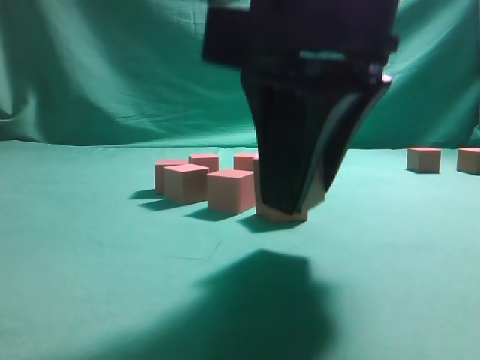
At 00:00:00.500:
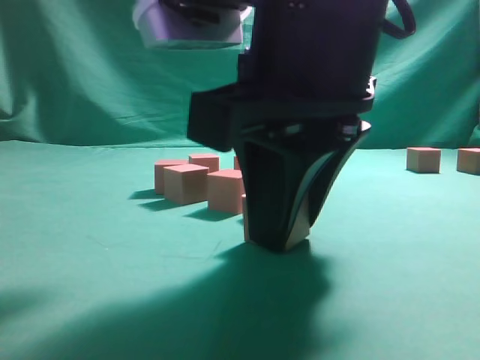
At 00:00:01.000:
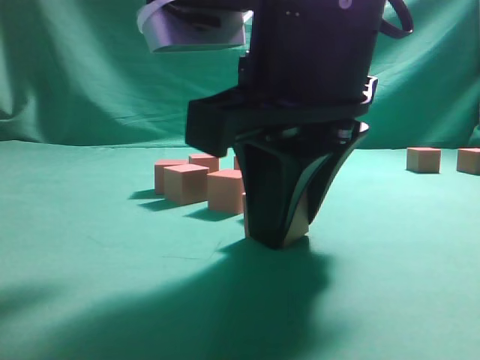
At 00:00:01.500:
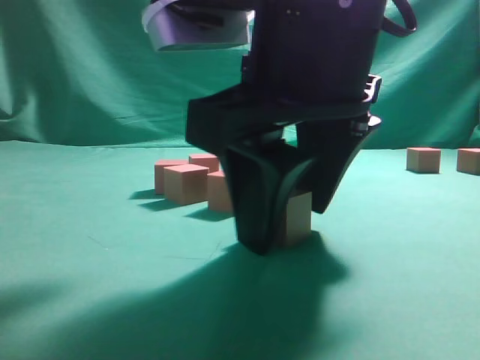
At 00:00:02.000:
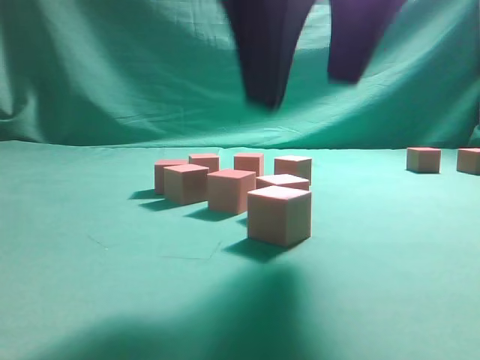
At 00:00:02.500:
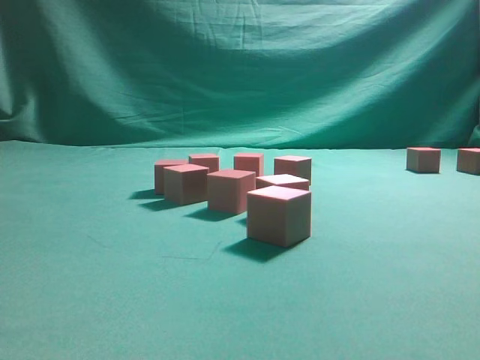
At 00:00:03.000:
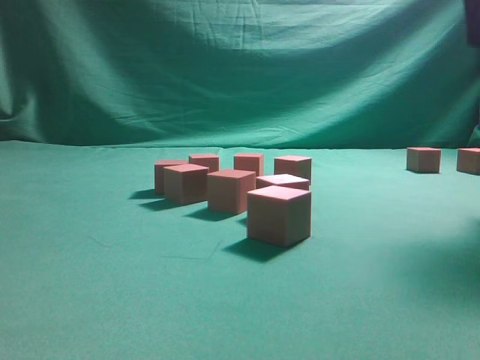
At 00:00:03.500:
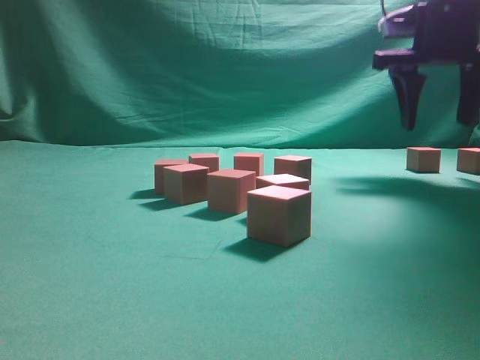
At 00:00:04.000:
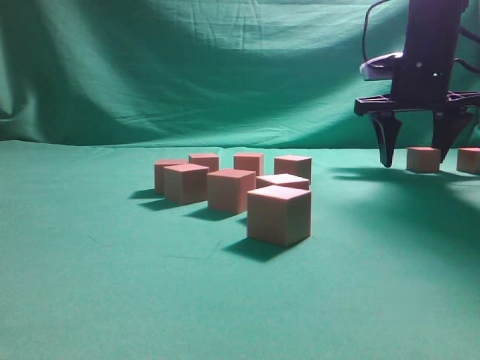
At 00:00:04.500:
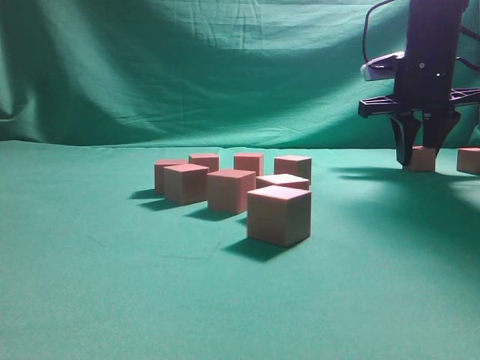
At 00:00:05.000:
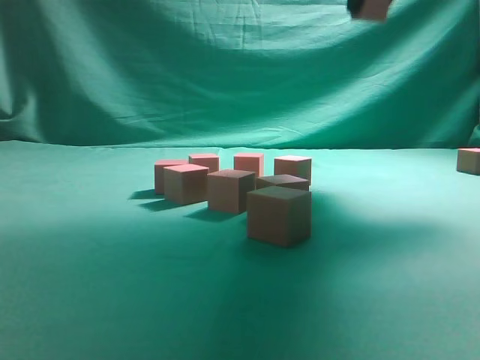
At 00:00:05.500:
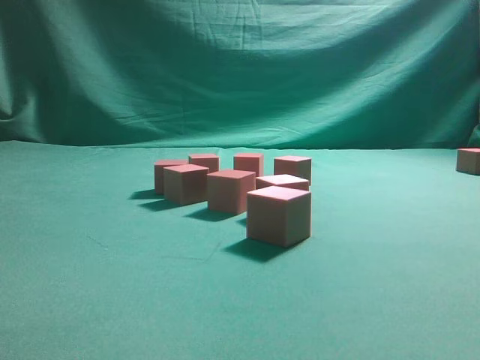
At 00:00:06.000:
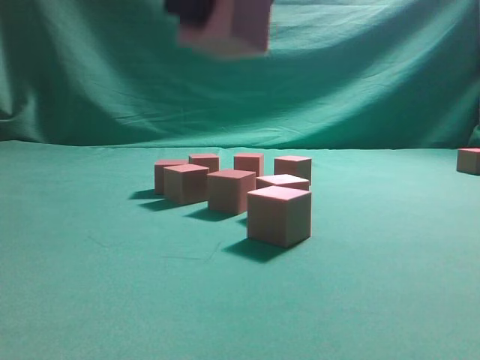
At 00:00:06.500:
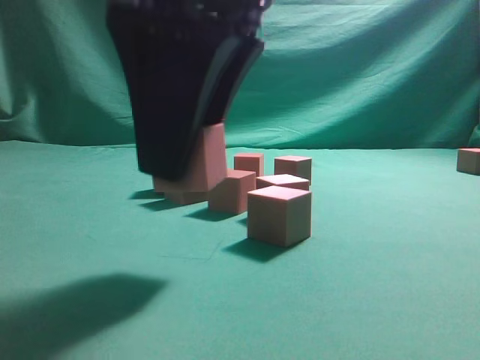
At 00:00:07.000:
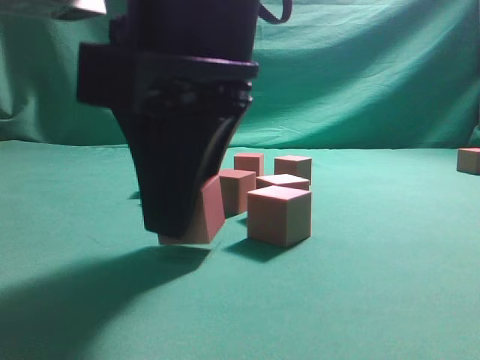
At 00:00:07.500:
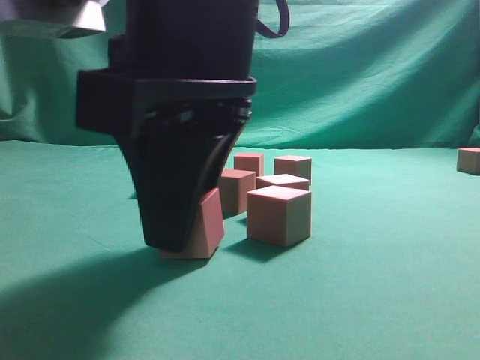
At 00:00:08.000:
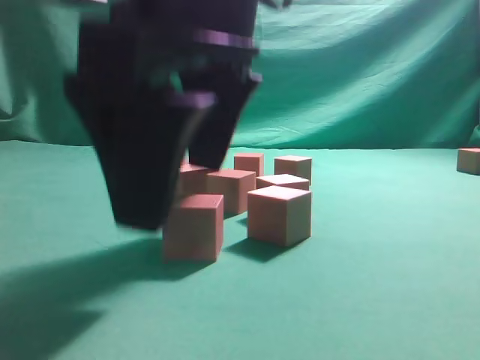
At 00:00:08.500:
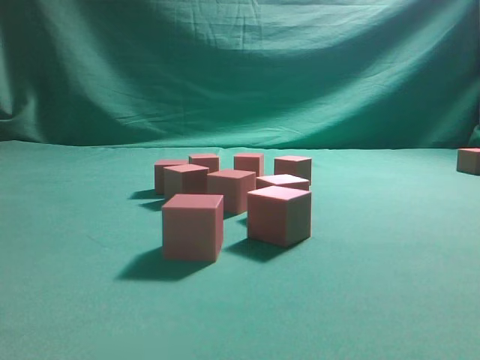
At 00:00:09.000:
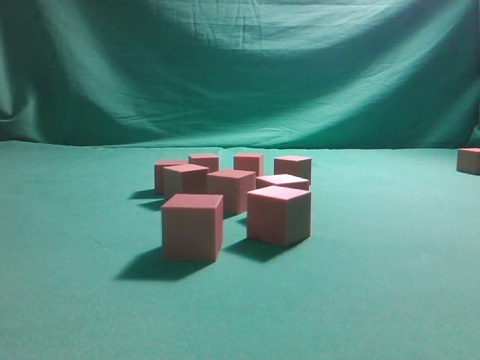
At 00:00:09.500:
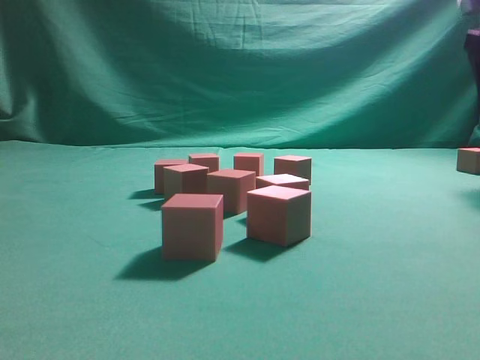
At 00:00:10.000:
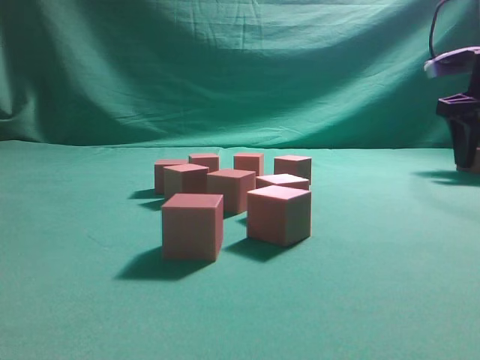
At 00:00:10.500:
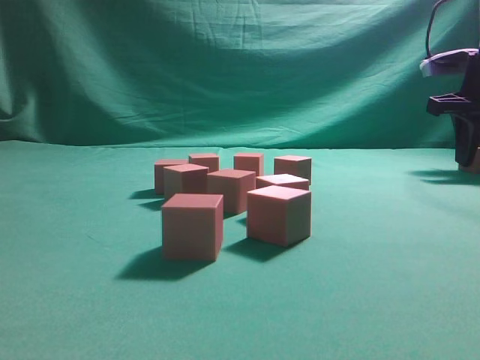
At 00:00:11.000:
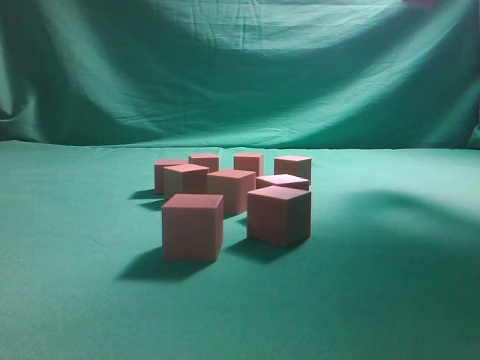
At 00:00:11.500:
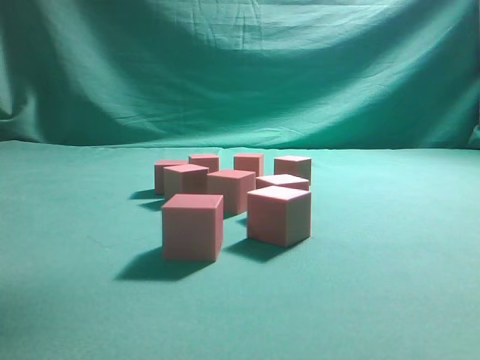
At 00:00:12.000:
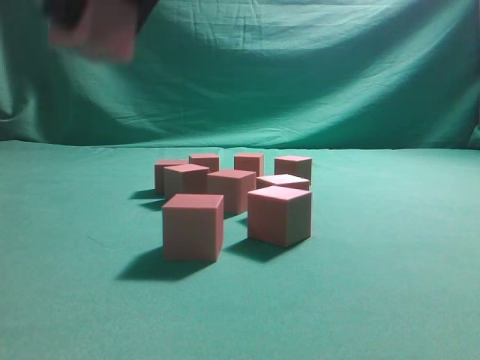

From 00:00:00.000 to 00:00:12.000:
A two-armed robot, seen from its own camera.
Task of the whole recording: pick up the multiple cubes in two columns one by one and place them in another position on the table.
Step, from 00:00:00.000 to 00:00:02.000: Place the block at the correct position to assemble the letter S.
Step, from 00:00:02.500 to 00:00:04.500: Pick up the block on the table.
Step, from 00:00:05.000 to 00:00:08.000: Place the block at the correct position to assemble the letter S.
Step, from 00:00:08.500 to 00:00:10.500: Pick up the block on the table.
From 00:00:00.000 to 00:00:02.000: The right gripper opens its fingers.
From 00:00:02.000 to 00:00:04.000: The right gripper is displaced forward and to the right by roughly 30 cm.
From 00:00:04.000 to 00:00:06.000: The right gripper moves backward and to the left, approximately 35 cm, and closes.
From 00:00:06.000 to 00:00:08.000: The right gripper moves downward, some 10 cm, and opens up.
From 00:00:08.000 to 00:00:10.000: The right gripper heads to the right and forward, covering about 40 cm.
From 00:00:10.000 to 00:00:12.000: The right gripper is displaced to the left and backward by approximately 40 cm, and closes its fingers.

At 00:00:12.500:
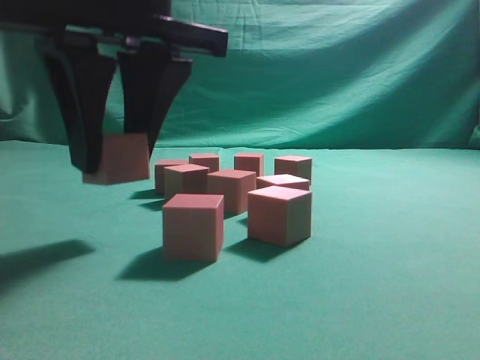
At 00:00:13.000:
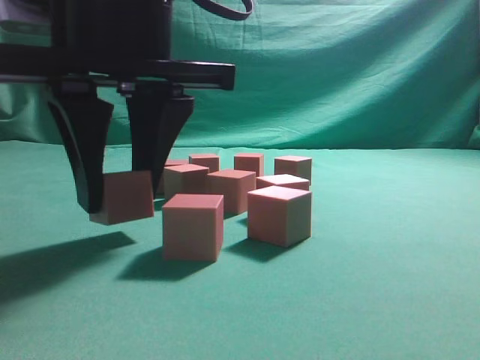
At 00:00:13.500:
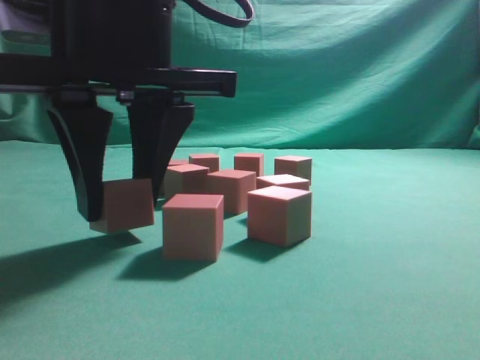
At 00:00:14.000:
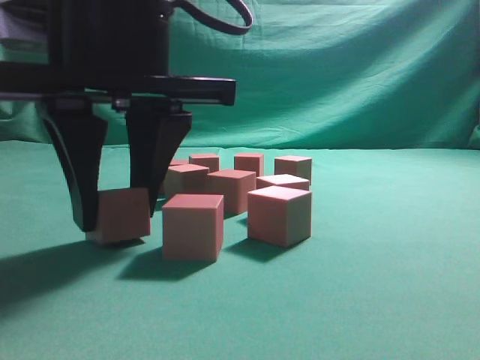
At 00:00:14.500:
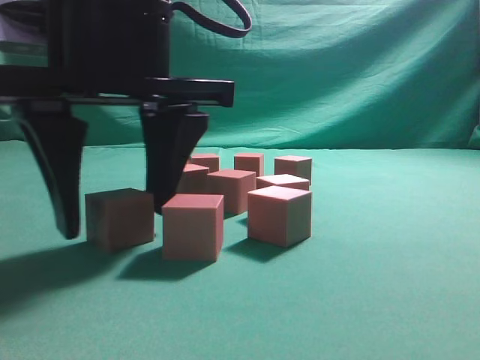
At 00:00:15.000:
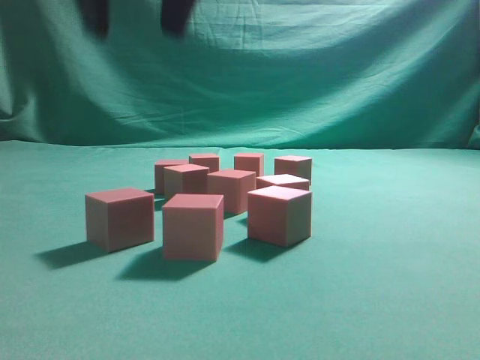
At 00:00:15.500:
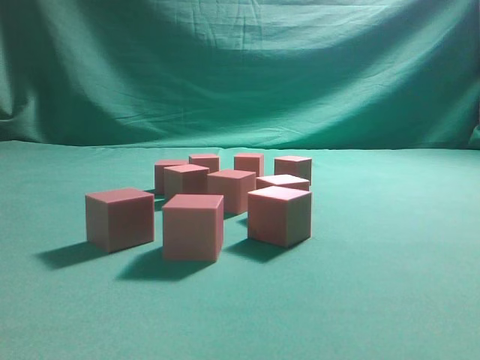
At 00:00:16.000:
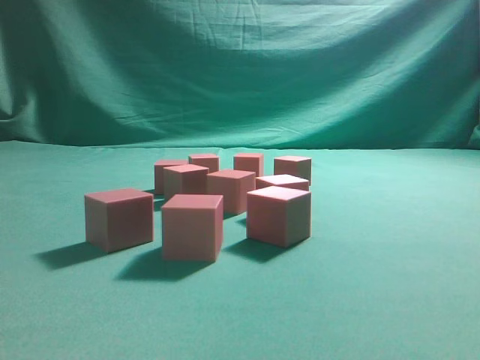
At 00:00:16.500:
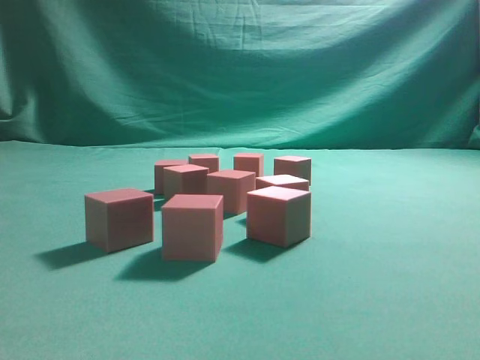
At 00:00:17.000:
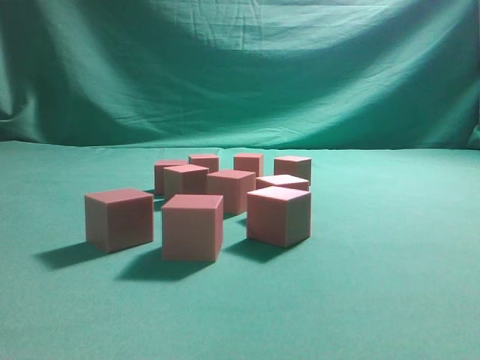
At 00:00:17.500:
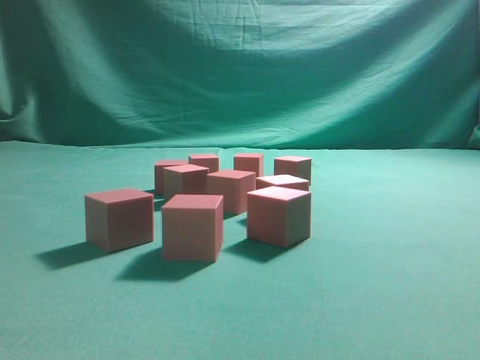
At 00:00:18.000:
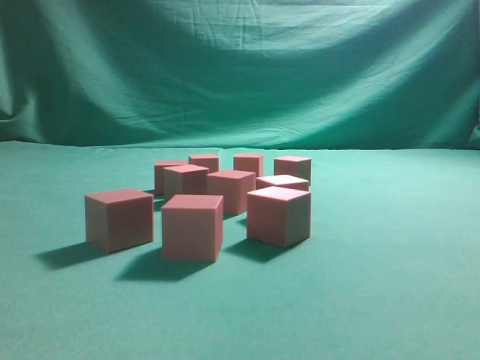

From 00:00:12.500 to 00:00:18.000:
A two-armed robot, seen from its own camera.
Task of the whole recording: pick up the multiple cubes in two columns one by one and place them in another position on the table.
Step, from 00:00:12.500 to 00:00:14.500: Place the block at the correct position to assemble the letter S.
From 00:00:12.500 to 00:00:14.500: There are only small adjustments of the grippers.
From 00:00:14.500 to 00:00:16.000: The right gripper is displaced upward and to the right by roughly 40 cm, and closes.
